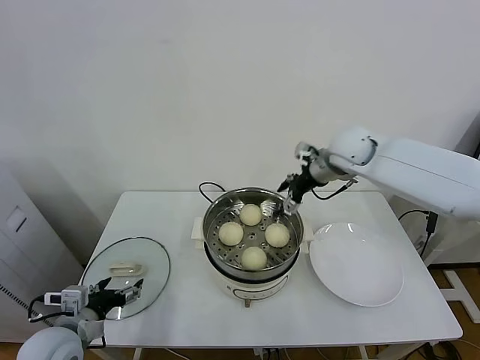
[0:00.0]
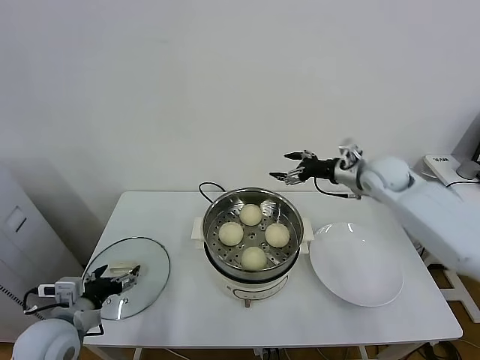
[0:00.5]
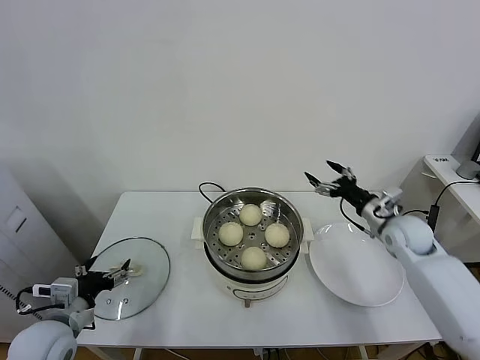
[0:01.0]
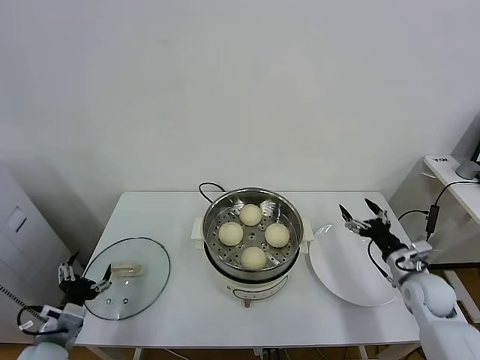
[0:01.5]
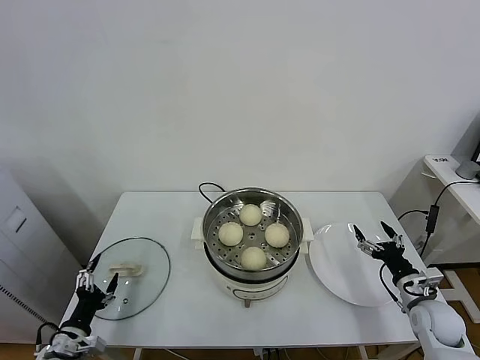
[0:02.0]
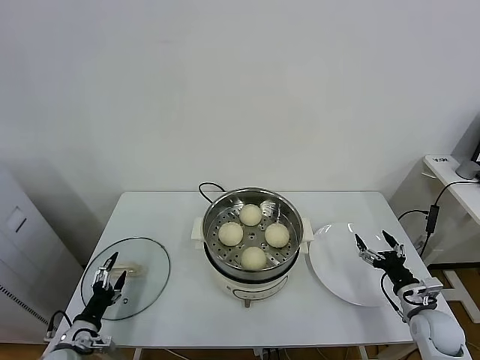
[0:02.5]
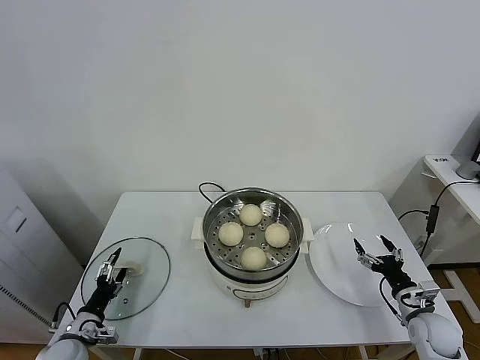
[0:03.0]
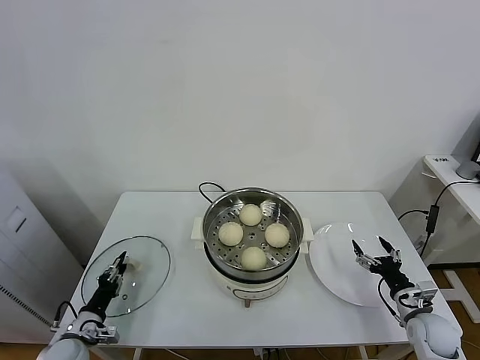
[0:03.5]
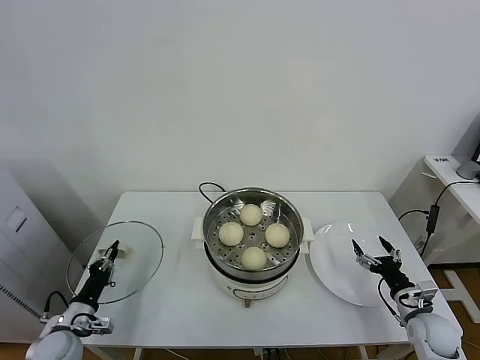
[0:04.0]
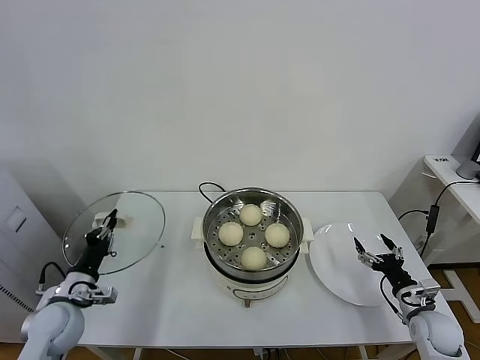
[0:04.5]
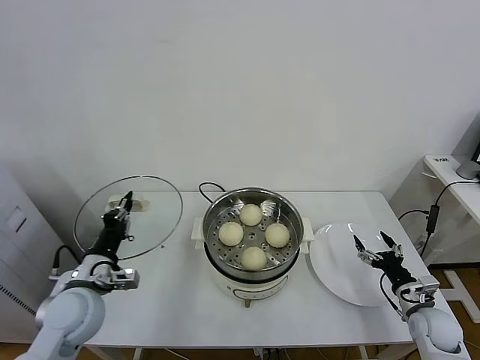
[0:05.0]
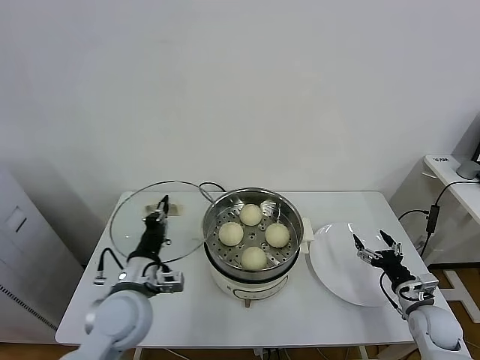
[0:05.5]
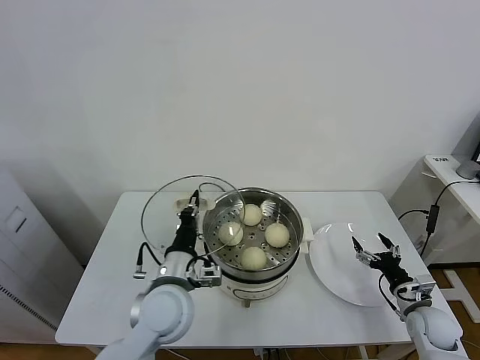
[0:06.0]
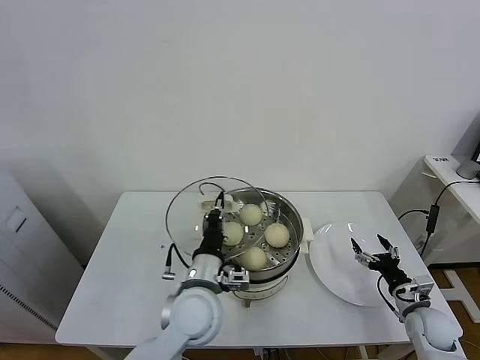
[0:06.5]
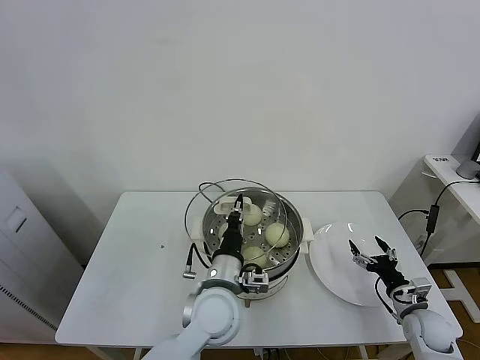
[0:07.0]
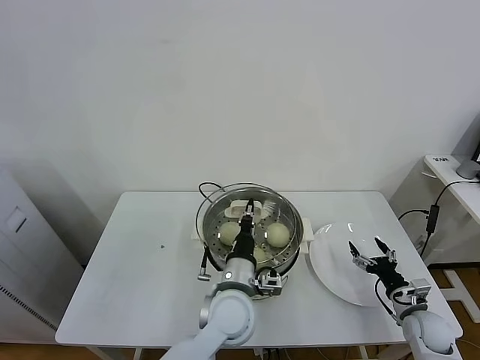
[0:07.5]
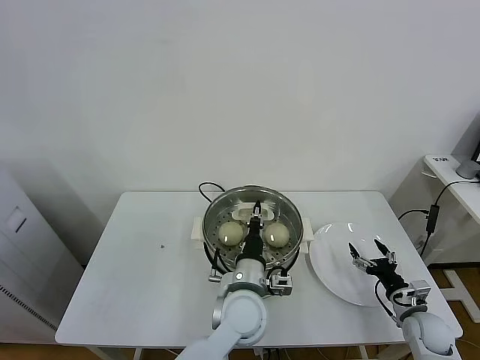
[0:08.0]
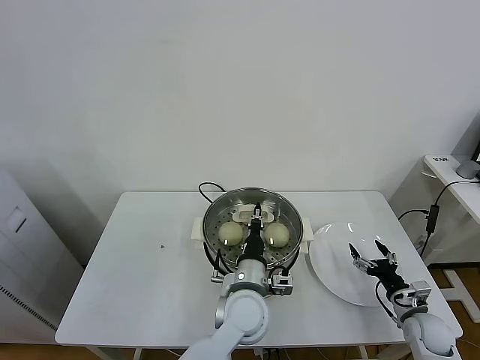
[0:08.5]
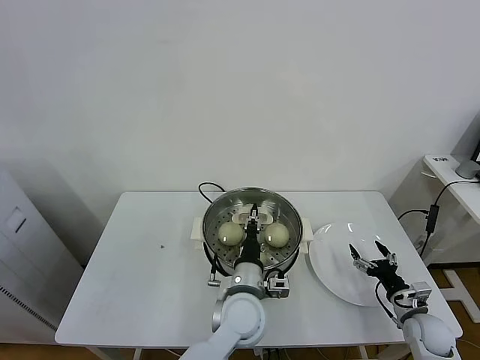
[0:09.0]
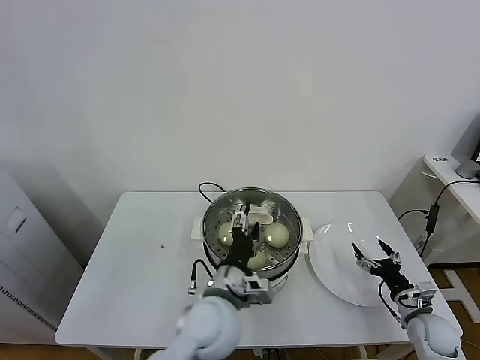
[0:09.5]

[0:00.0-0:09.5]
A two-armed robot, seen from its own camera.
Task of the whole recording: take steamed baozi put them in steamer.
Step, 0:00.0 to 0:03.5: Grasp the pot lid with left gripper.
0:00.0 to 0:02.0: The right gripper moves downward, backward and to the right, roughly 40 cm, while the left gripper travels downward and to the left by roughly 15 cm.
0:02.0 to 0:04.0: The left gripper heads forward, covering approximately 5 cm, and closes.
0:04.0 to 0:05.5: The left gripper heads to the right and upward, covering approximately 25 cm.
0:05.5 to 0:07.5: The left gripper is displaced to the right by roughly 20 cm.
0:07.5 to 0:09.5: The left gripper opens.

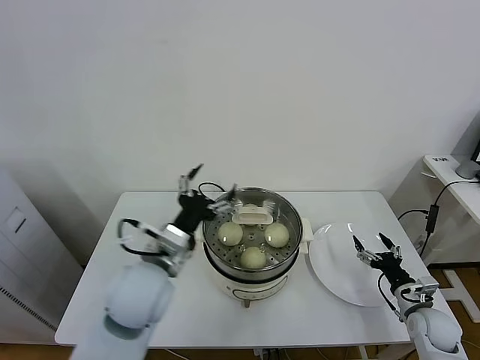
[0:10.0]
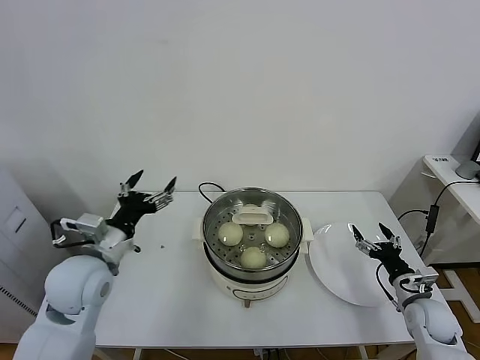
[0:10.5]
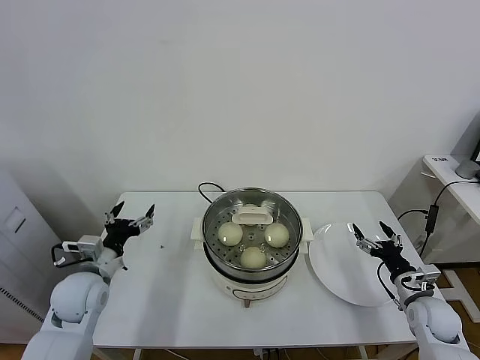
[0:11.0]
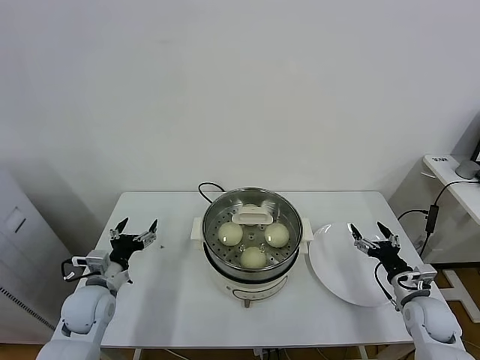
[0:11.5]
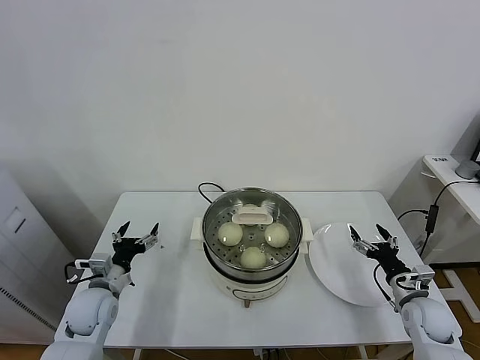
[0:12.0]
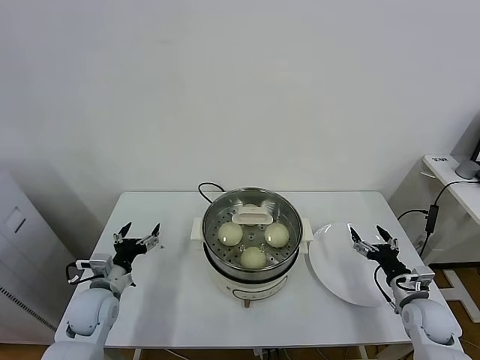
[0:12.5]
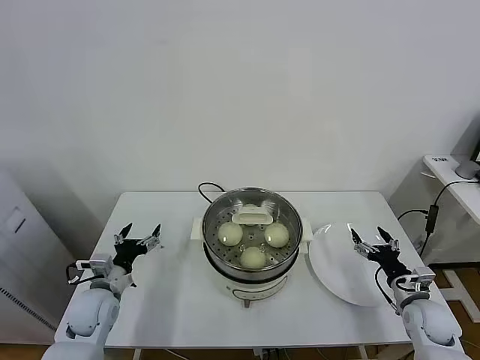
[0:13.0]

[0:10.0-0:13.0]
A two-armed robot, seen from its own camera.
Task of the whole recording: take steamed baozi put them in steamer.
0:10.0 to 0:11.5: The left gripper goes some 25 cm to the left and downward.
0:11.5 to 0:13.0: The grippers make only small movements.
